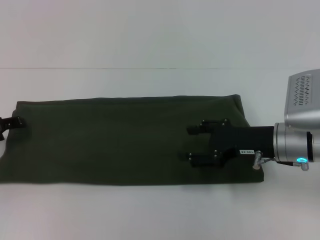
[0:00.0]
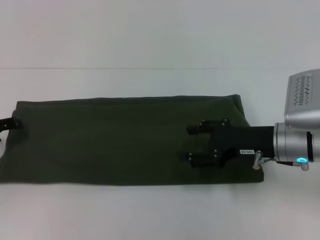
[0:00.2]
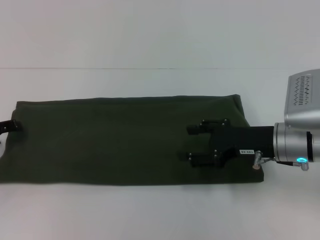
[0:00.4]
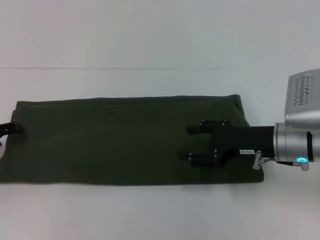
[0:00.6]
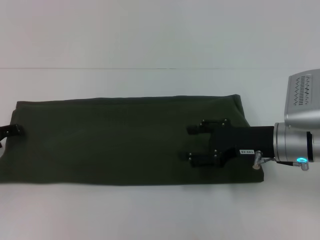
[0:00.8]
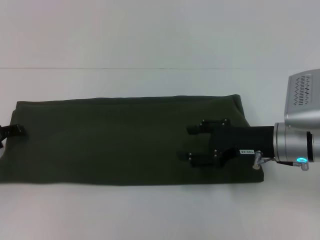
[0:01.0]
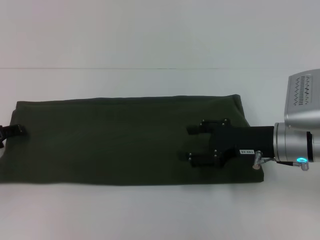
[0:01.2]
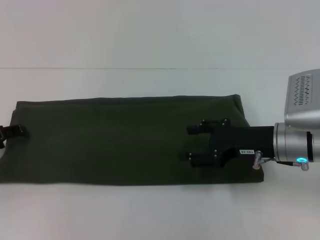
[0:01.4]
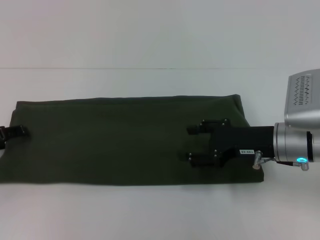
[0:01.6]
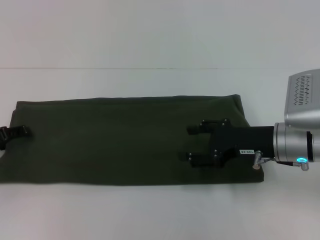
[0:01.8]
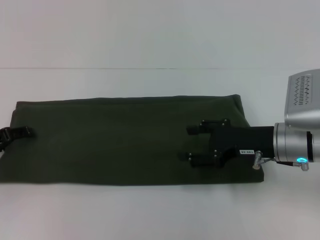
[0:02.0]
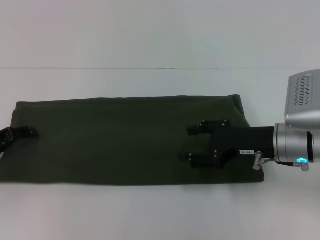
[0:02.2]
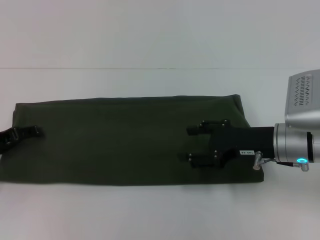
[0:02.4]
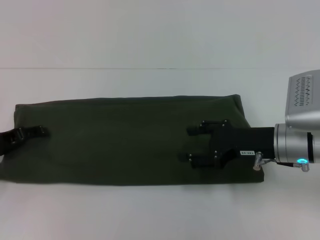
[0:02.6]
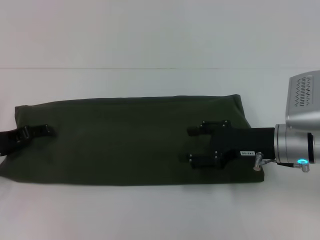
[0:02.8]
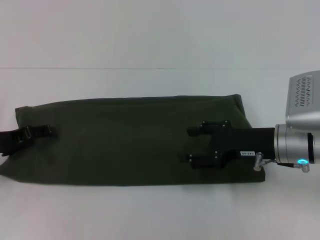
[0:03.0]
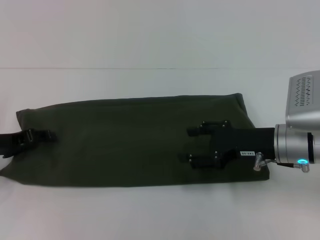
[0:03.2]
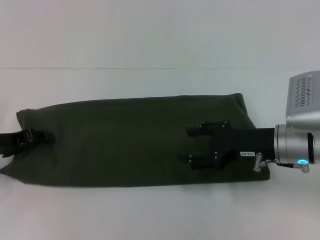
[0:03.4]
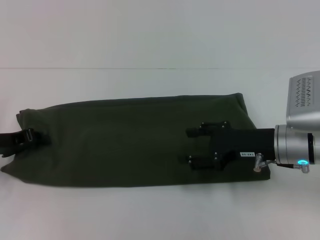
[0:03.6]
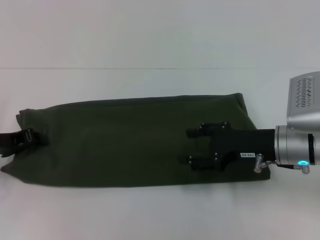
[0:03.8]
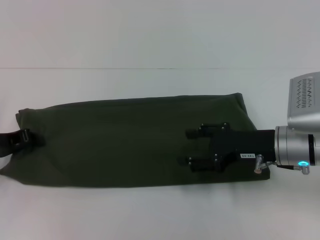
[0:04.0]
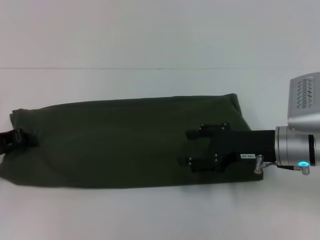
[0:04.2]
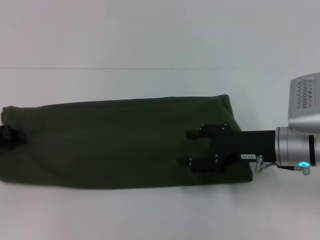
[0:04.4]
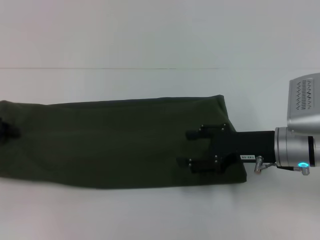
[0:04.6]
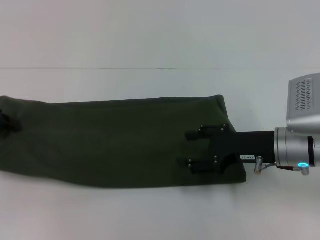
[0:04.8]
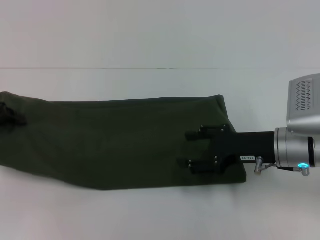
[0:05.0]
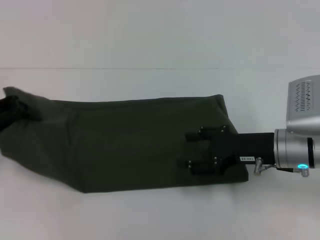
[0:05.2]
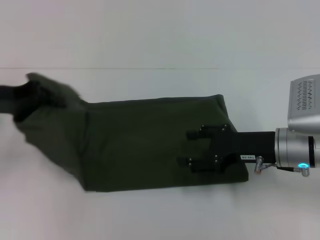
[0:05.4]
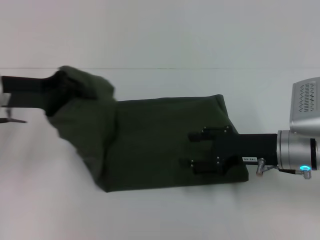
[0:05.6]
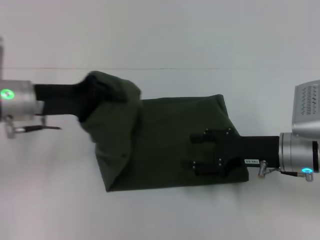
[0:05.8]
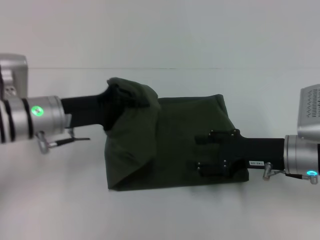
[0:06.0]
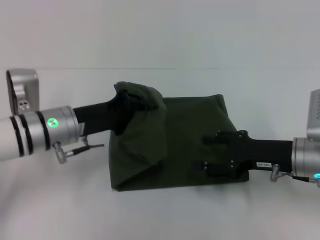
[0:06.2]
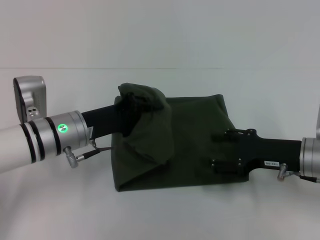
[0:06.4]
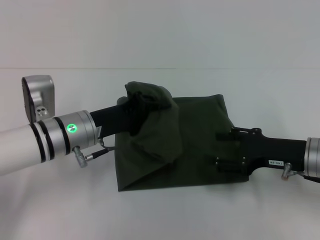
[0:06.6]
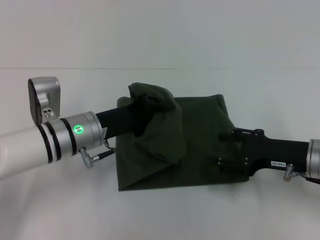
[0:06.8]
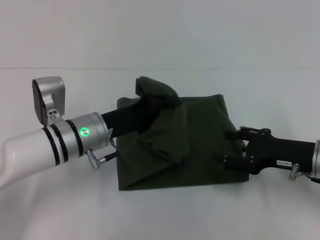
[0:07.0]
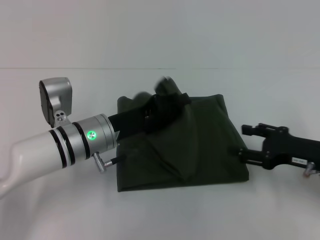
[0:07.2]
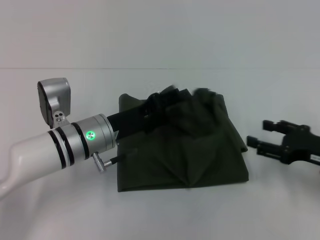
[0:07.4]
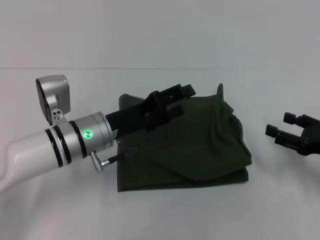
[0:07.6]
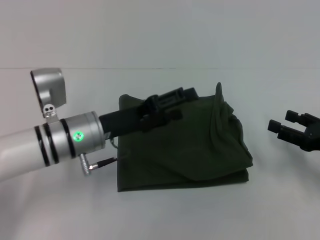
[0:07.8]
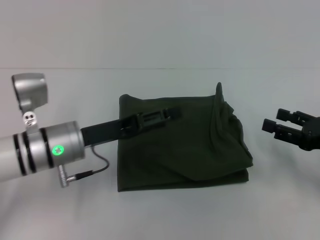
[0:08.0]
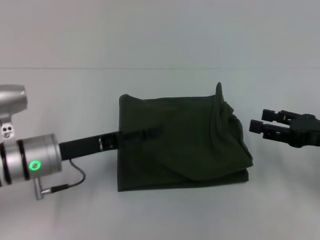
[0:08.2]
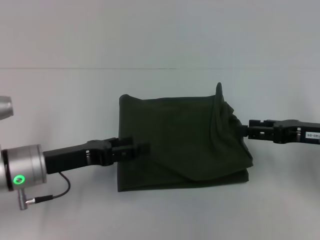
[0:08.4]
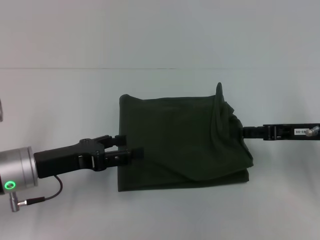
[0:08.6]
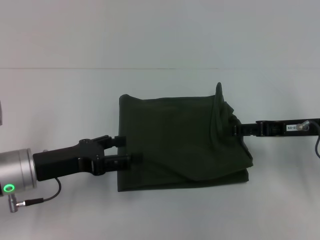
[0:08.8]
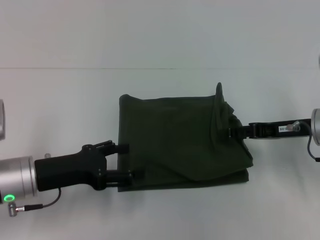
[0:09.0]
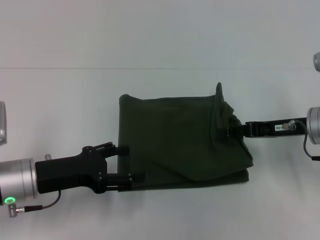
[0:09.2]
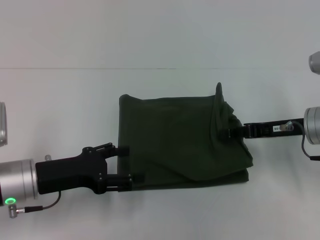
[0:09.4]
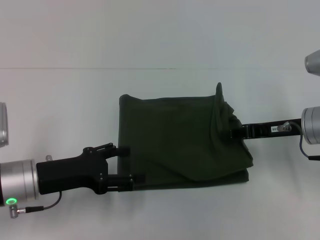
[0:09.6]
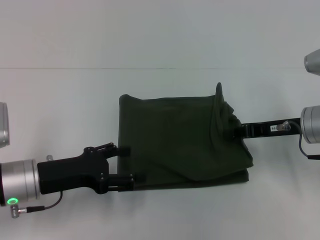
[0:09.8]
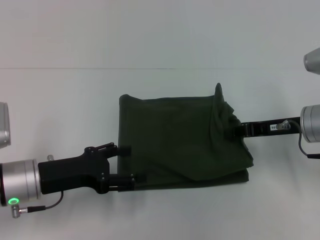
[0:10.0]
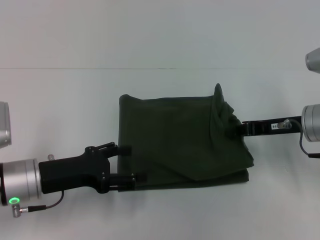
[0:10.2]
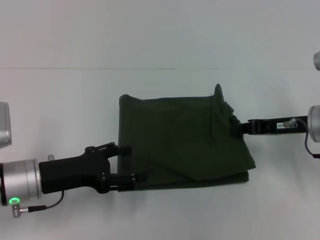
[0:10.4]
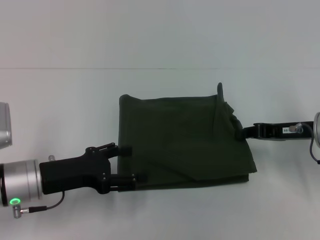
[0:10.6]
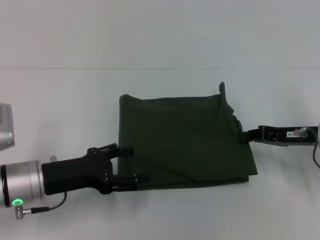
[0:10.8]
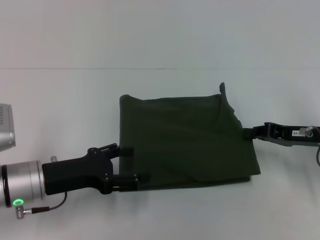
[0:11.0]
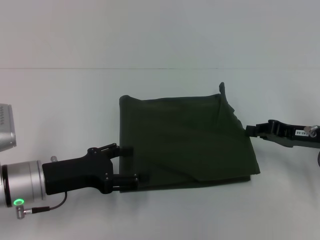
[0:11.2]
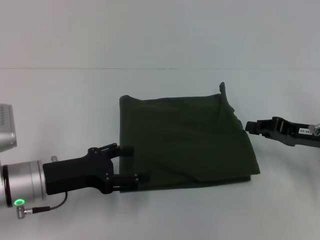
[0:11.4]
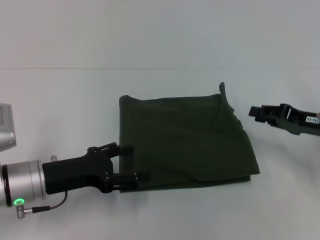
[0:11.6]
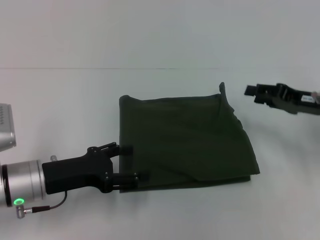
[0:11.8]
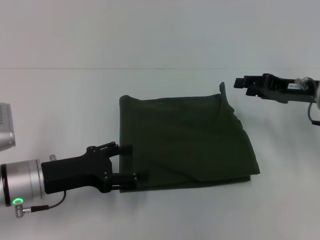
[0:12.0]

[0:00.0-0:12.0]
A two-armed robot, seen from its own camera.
Step, 0:00.0 to 0:07.8: Fold the clothes with your left hand.
0:01.6 to 0:03.0: The grippers stay close to where they were, moving slightly.
0:03.0 to 0:04.4: The left gripper closes up.
0:04.4 to 0:06.0: The left gripper heads to the right, covering roughly 15 cm.
0:06.0 to 0:07.6: The left gripper is displaced to the right by some 5 cm, and opens its fingers; the right gripper is displaced to the right by roughly 10 cm.
0:07.6 to 0:09.0: The left gripper goes roughly 10 cm to the left and backward. The right gripper heads forward and to the left, covering some 10 cm.
0:09.0 to 0:10.4: The right gripper closes its fingers.
0:10.4 to 0:12.0: The right gripper opens.

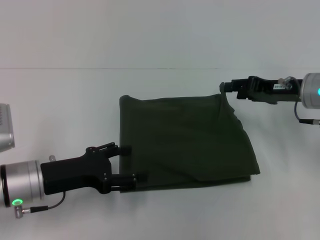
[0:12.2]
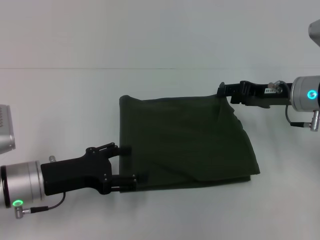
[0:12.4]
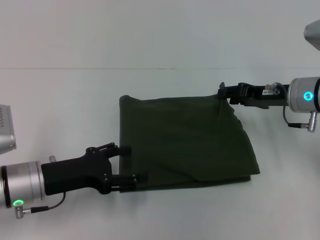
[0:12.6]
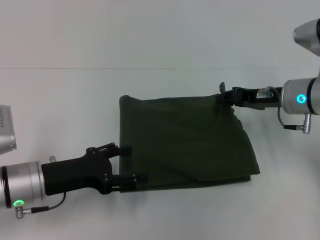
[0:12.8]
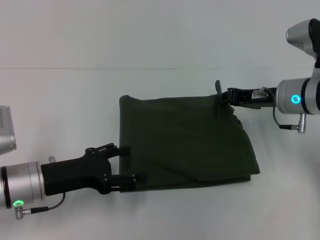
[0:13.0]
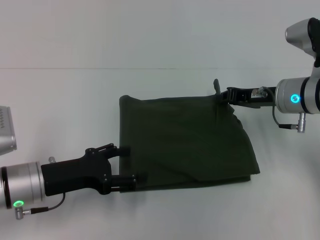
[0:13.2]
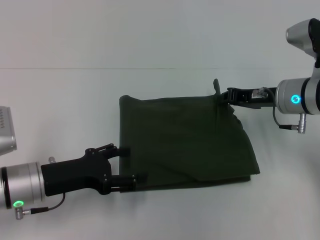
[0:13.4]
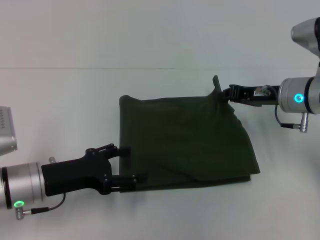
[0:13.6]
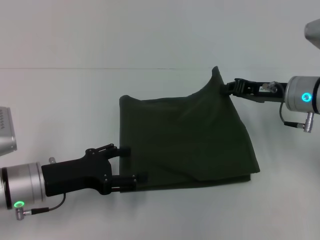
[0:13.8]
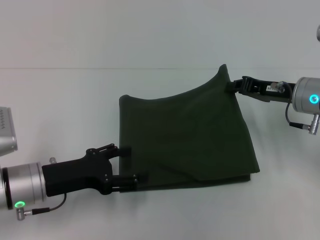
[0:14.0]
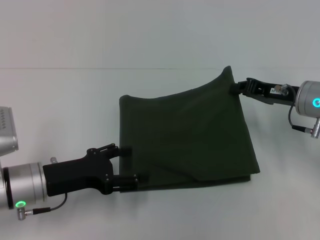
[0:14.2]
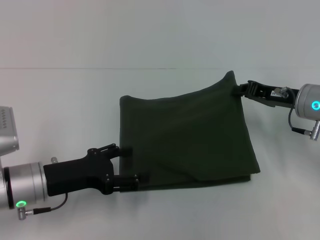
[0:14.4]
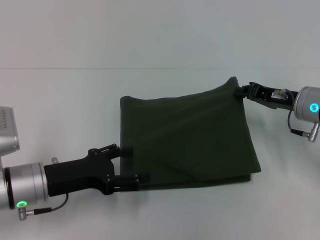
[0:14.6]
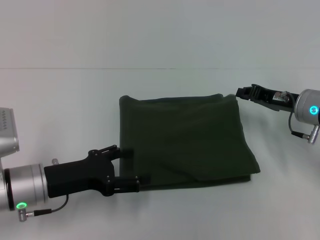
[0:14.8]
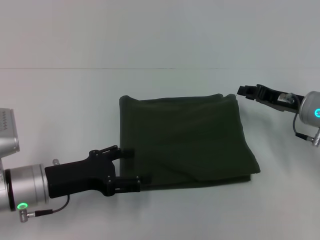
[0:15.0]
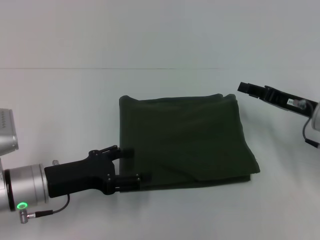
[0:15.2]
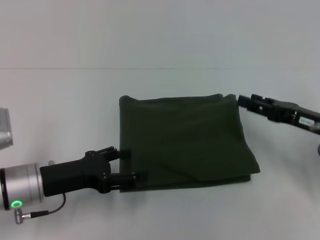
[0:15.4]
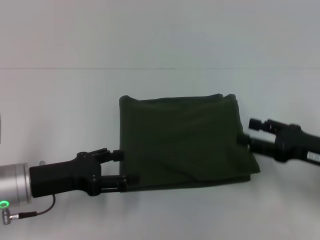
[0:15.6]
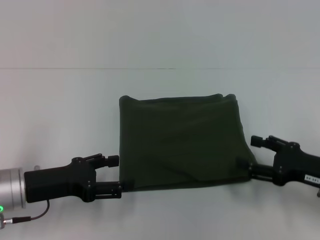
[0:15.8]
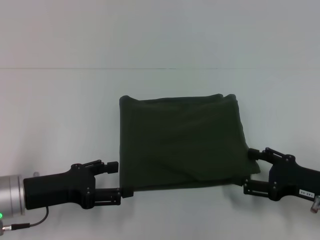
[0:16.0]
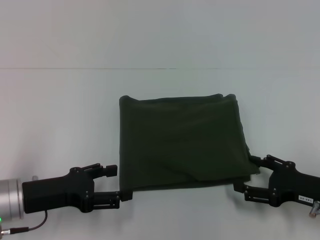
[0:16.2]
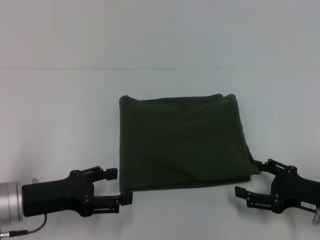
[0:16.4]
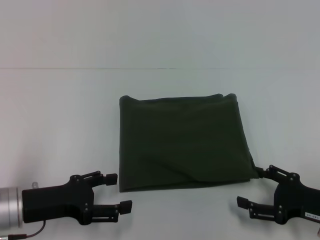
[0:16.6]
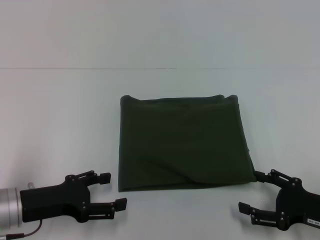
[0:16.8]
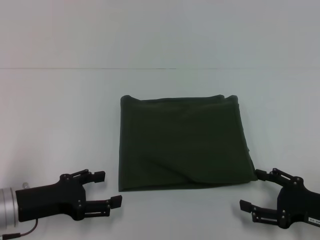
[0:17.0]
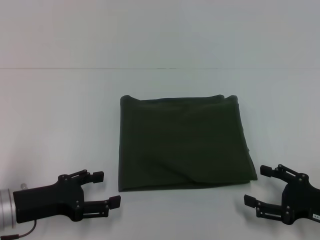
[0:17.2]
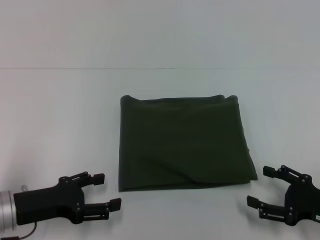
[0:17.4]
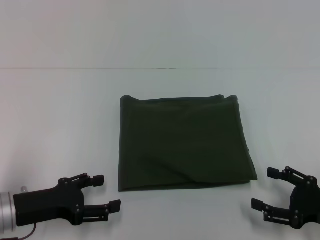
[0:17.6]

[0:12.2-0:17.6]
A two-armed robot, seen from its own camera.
0:12.2 to 0:13.6: The right gripper closes up.
0:13.6 to 0:15.0: The right gripper shifts by about 5 cm.
0:15.0 to 0:16.2: The right gripper heads backward, covering roughly 15 cm, and opens up.
0:16.2 to 0:17.6: The grippers make only small movements.
